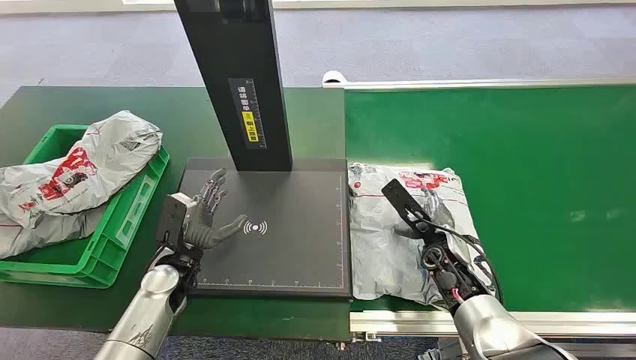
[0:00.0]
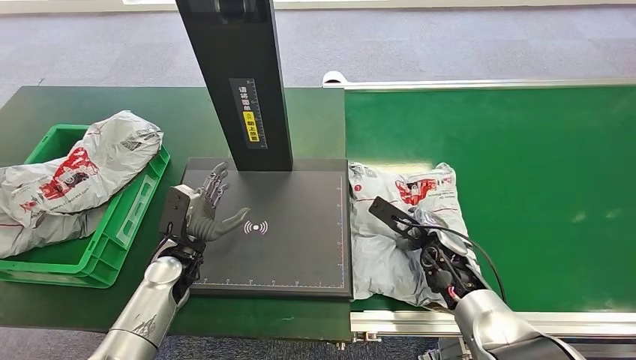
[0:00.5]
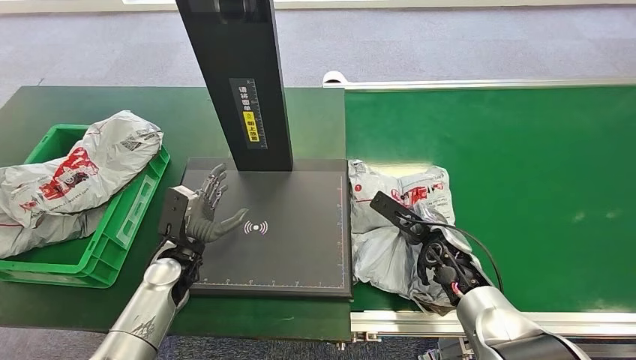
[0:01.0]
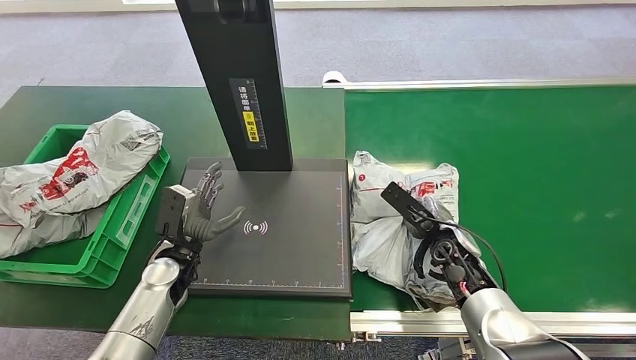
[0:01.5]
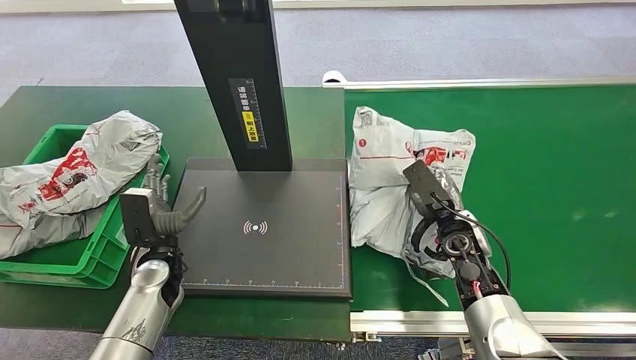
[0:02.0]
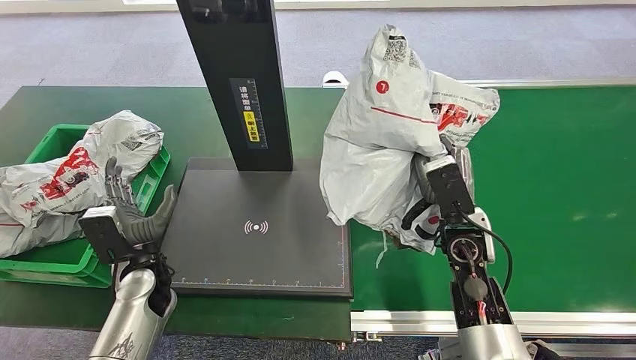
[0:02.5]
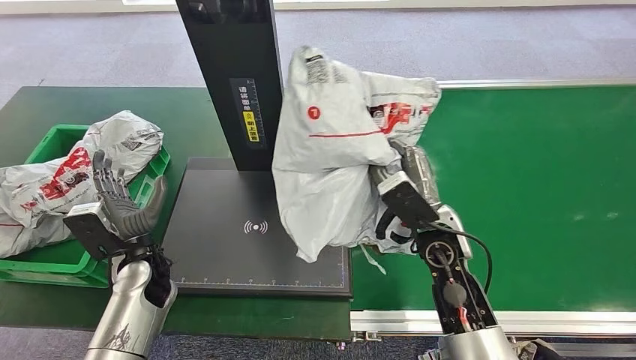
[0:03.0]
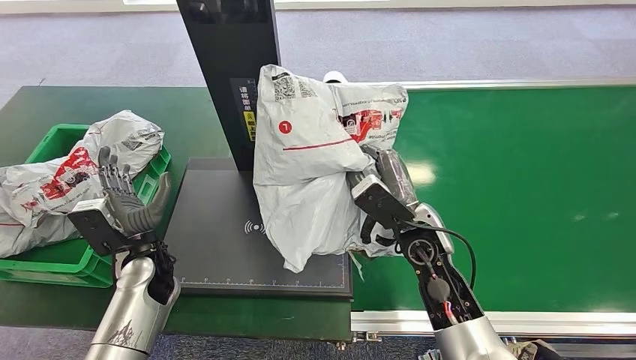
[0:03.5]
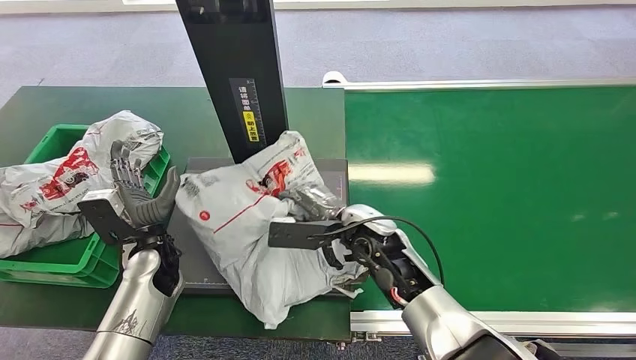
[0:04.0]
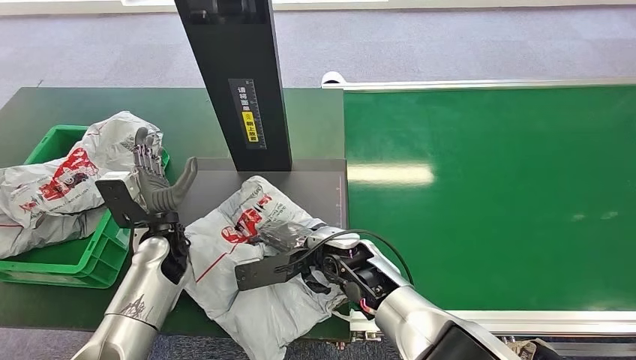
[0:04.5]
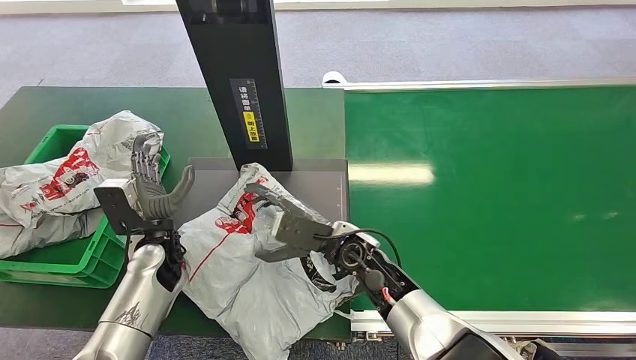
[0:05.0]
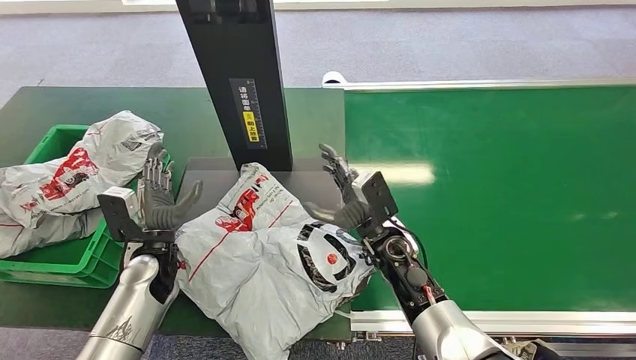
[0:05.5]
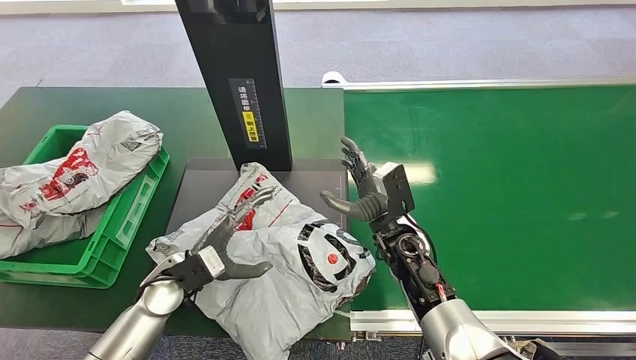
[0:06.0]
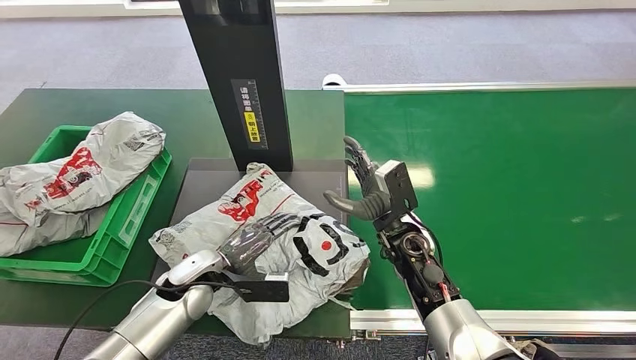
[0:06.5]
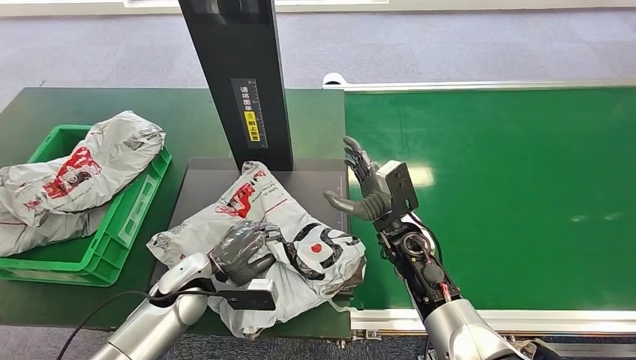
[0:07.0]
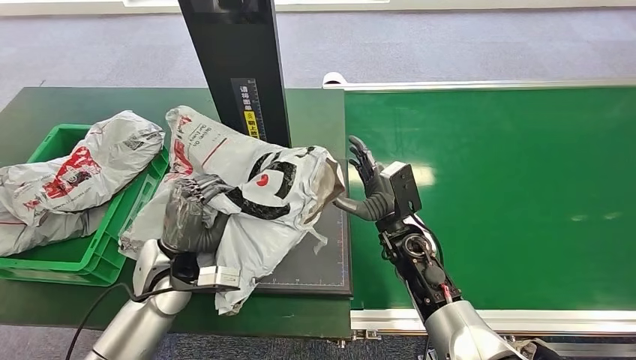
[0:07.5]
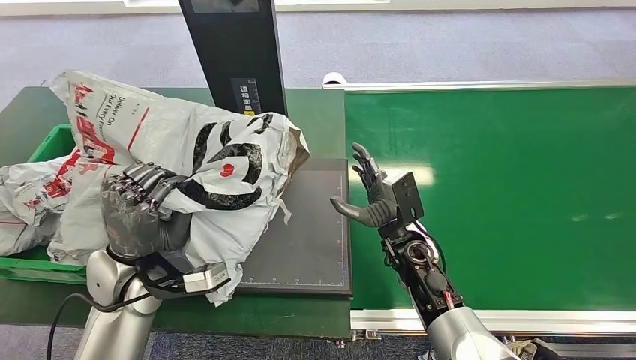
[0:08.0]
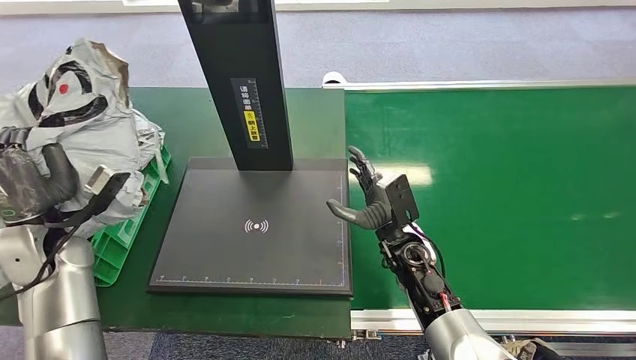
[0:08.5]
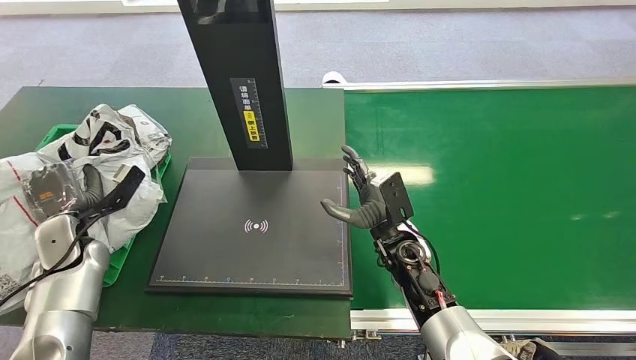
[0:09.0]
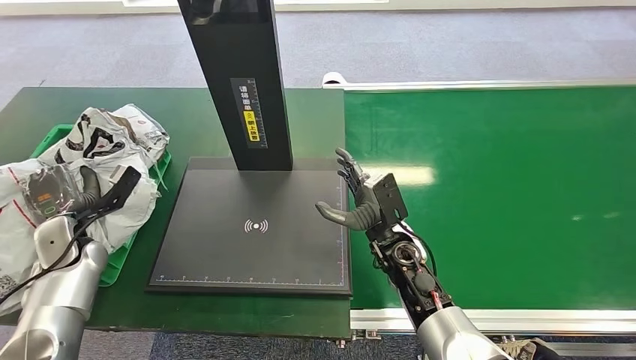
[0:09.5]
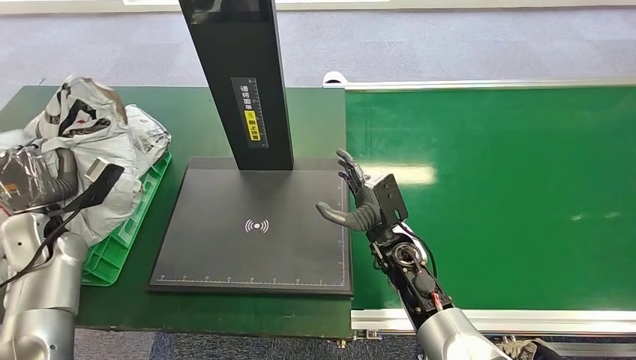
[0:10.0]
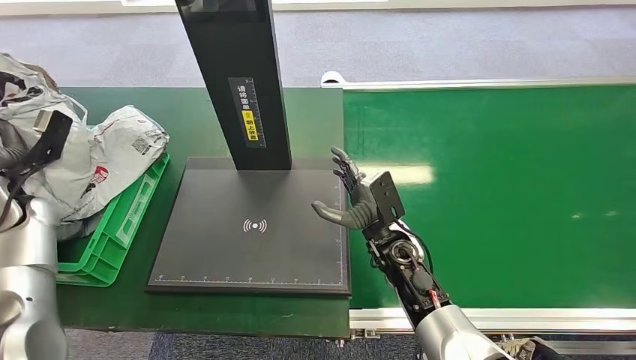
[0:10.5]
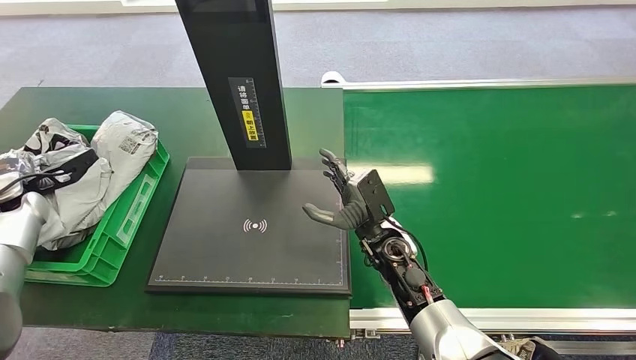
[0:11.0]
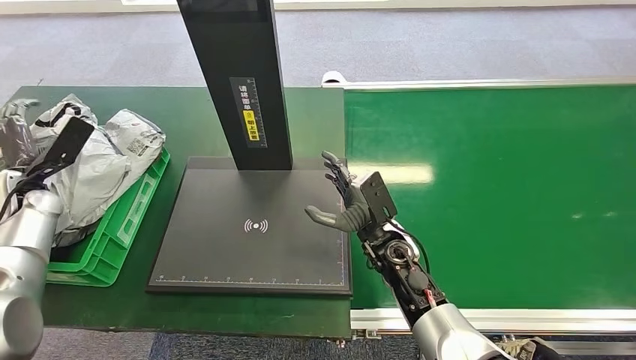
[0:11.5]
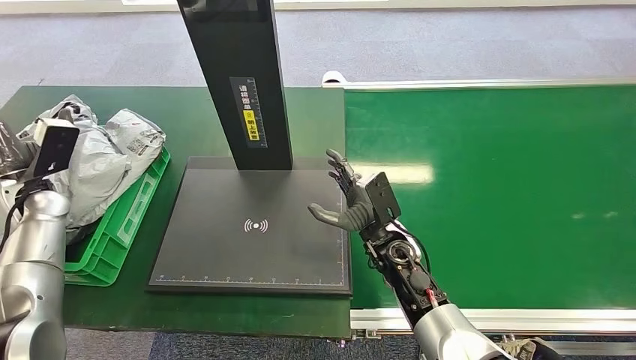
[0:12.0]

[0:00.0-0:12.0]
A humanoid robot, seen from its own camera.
Step, 0:00.0 to 0:02.5: Pick up the package from the conveyor belt.
Step, 0:03.0 to 0:06.0: Place the package onto the inbound machine.
Step, 0:06.5 to 0:08.0: Pick up the package from the inbound machine.
Step, 0:08.5 to 0:12.0: Place the package into the parcel locker.
0:10.0 to 0:12.0: The left hand travels to the left and back again, some 10 cm each way.
